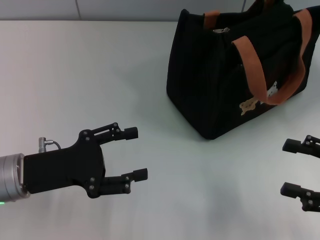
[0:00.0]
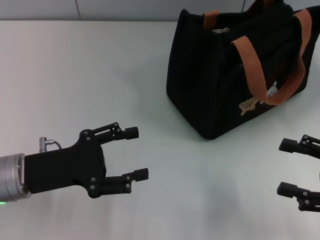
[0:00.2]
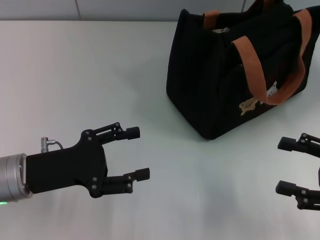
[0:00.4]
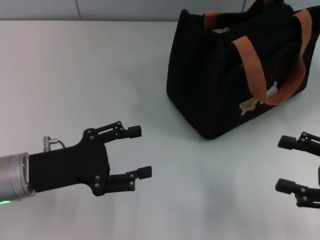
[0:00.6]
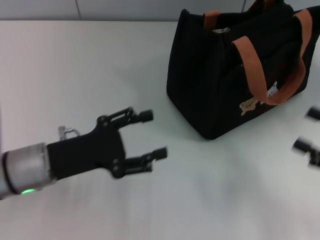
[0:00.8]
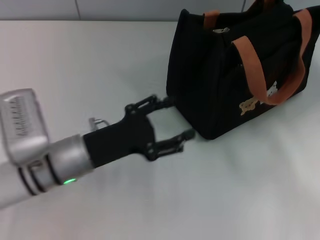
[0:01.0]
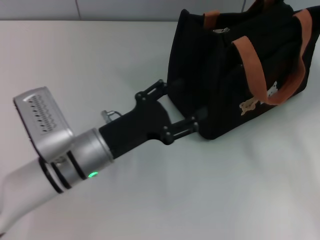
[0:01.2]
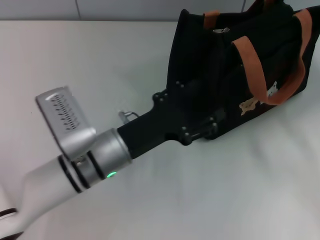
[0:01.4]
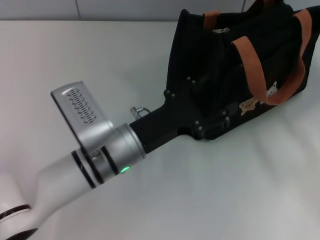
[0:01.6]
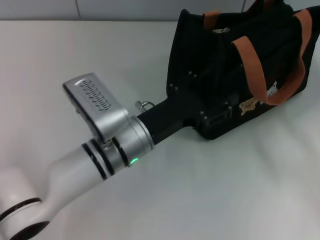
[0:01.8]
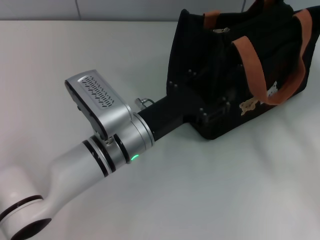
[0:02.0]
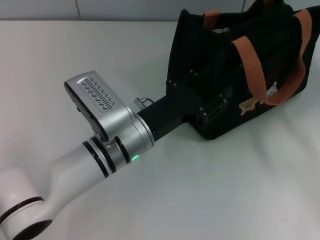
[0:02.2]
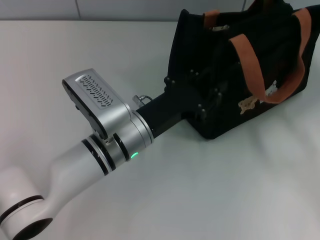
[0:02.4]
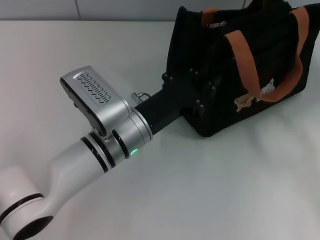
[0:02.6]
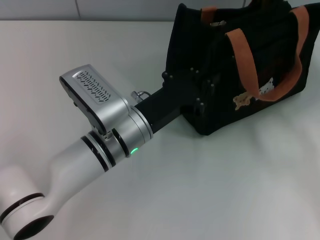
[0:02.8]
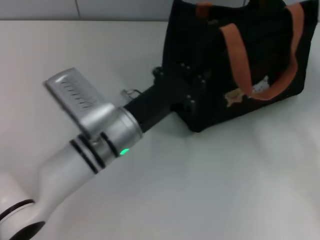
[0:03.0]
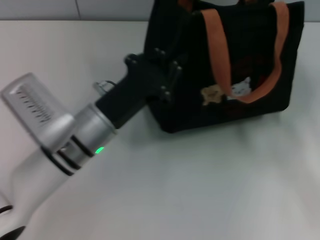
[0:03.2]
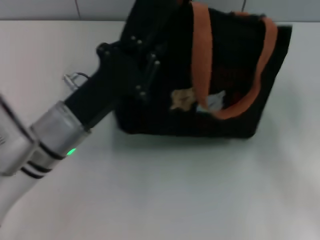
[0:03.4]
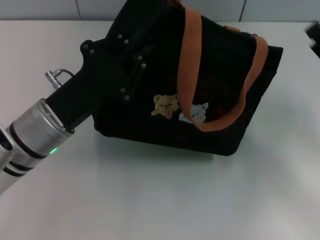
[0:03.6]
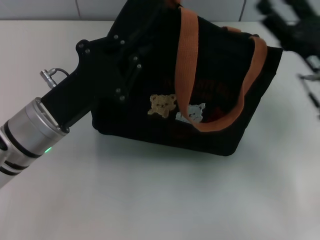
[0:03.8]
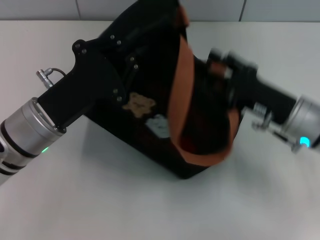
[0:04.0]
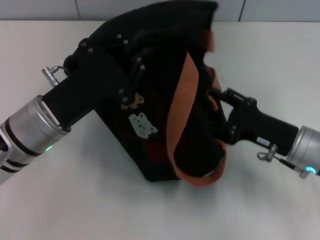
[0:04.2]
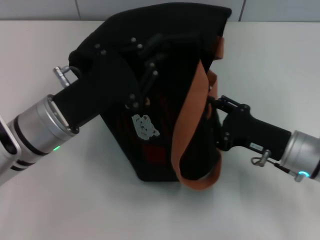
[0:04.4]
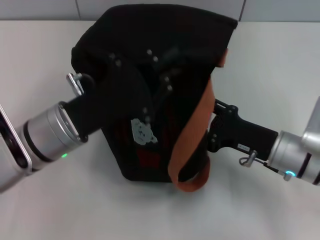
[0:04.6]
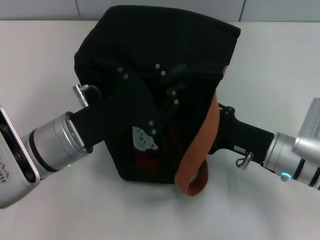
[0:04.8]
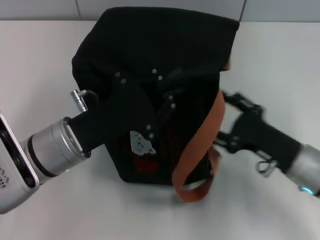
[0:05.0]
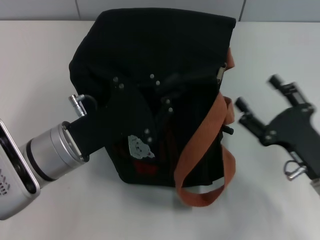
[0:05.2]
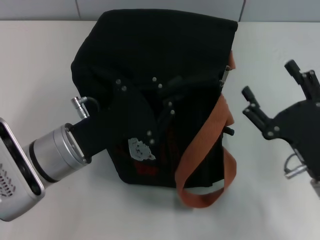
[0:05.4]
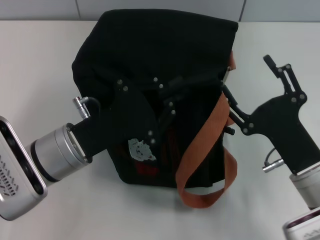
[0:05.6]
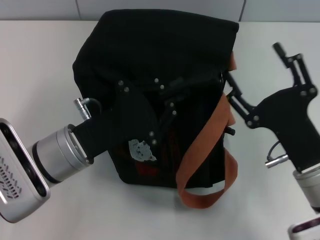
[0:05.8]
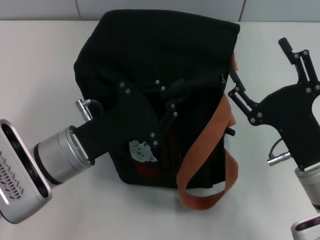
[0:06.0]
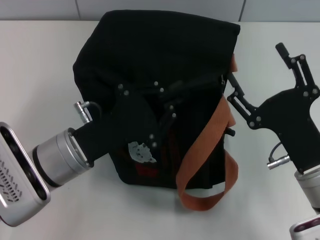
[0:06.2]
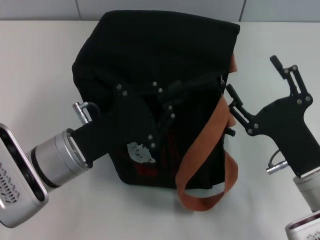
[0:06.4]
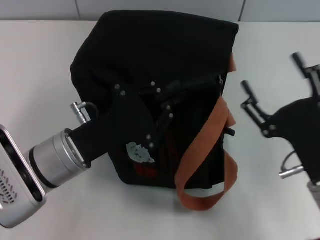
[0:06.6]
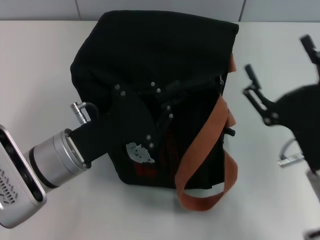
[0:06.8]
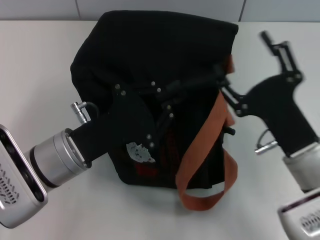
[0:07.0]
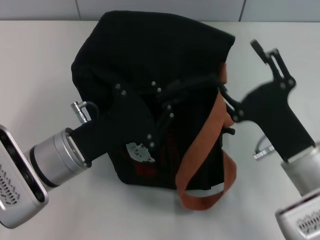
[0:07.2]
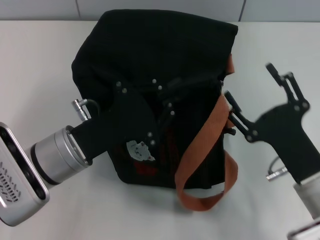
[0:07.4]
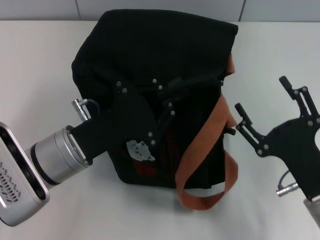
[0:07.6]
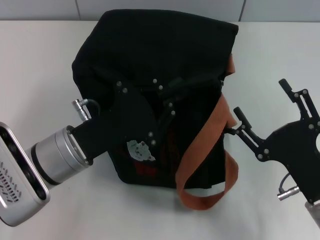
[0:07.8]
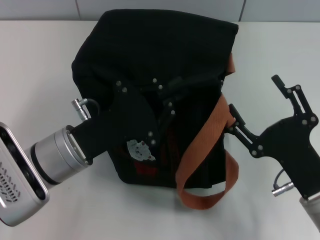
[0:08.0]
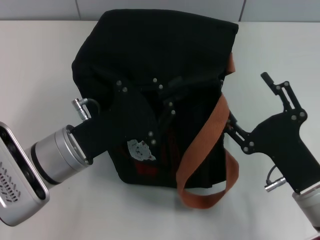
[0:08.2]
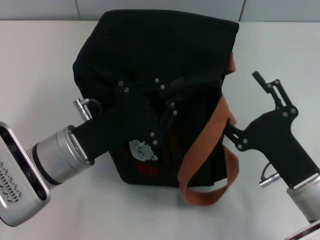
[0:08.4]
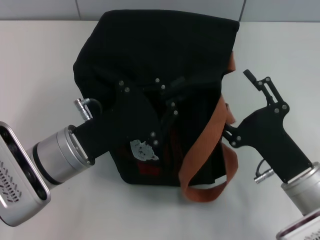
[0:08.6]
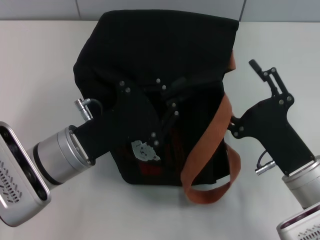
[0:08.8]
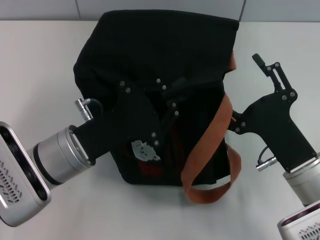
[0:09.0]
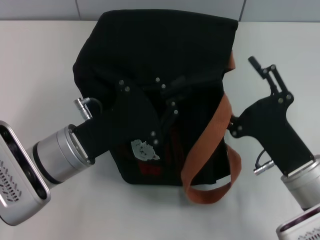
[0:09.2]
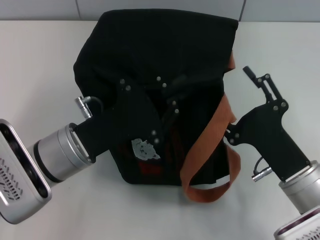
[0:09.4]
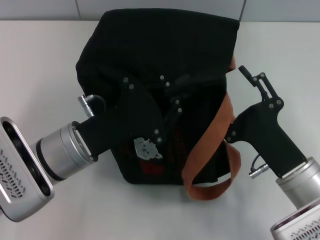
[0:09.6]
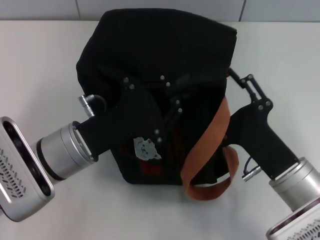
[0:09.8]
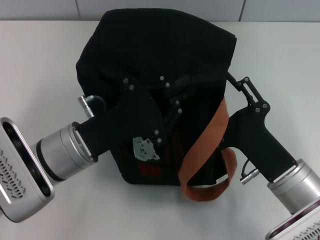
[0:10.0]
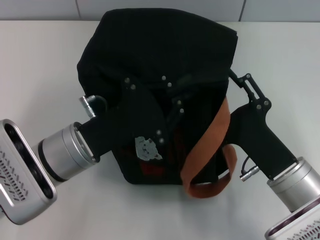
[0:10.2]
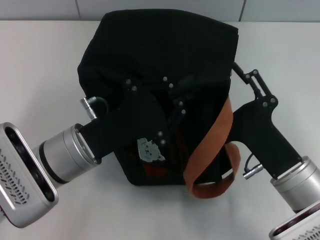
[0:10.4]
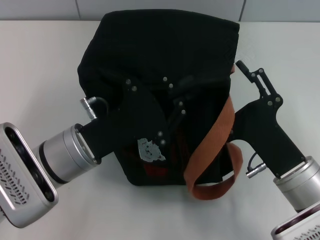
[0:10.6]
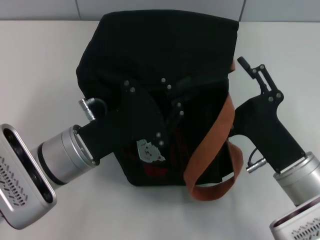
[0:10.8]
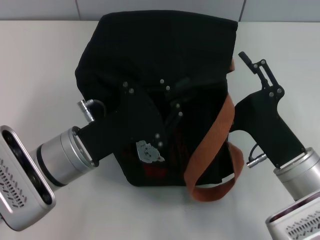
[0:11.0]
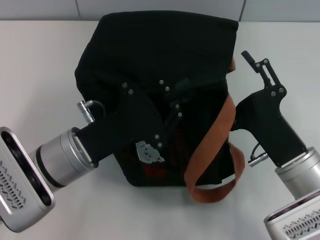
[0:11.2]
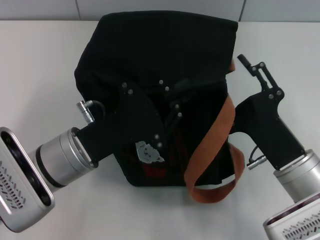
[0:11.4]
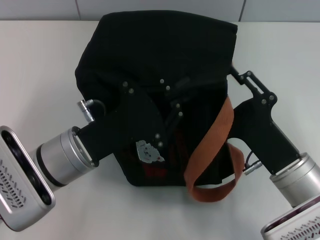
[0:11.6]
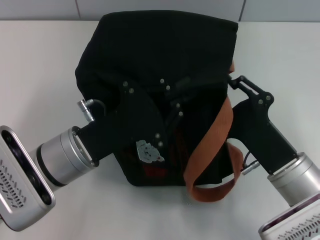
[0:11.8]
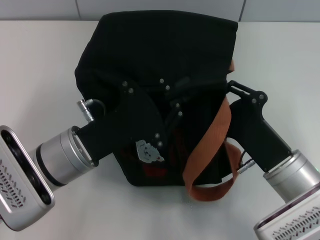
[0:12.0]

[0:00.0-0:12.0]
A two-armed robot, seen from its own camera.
0:00.0 to 0:01.6: The left gripper shifts roughly 15 cm to the right, while the right gripper shifts some 5 cm to the right.
0:01.6 to 0:03.0: The left gripper closes up.
0:03.0 to 0:04.4: The right gripper shifts approximately 20 cm to the left and forward, while the left gripper shifts approximately 10 cm to the left.
0:04.4 to 0:06.0: The right gripper heads backward, covering some 5 cm.
0:06.0 to 0:10.4: The grippers make only small movements.
0:10.4 to 0:12.0: The right gripper closes.

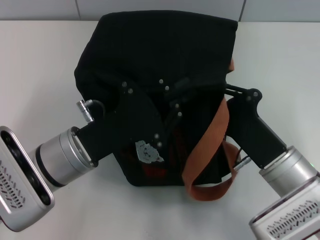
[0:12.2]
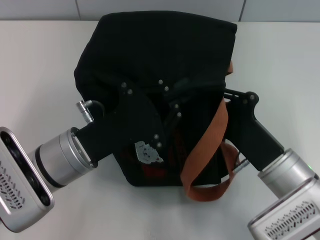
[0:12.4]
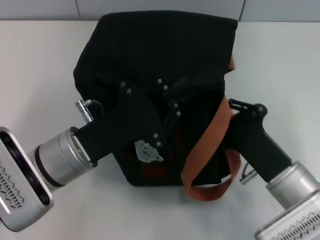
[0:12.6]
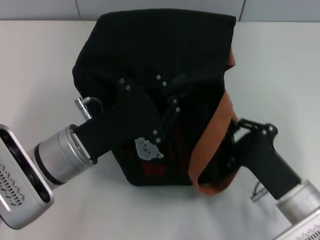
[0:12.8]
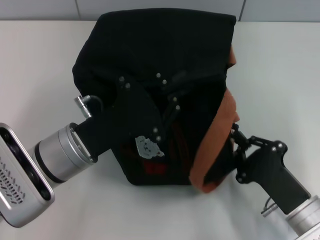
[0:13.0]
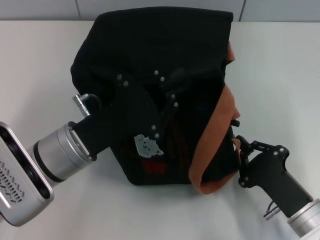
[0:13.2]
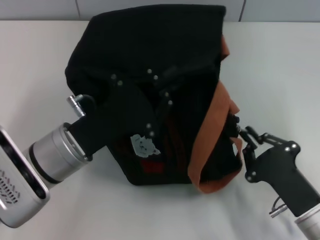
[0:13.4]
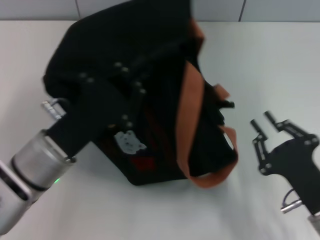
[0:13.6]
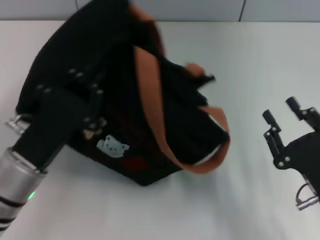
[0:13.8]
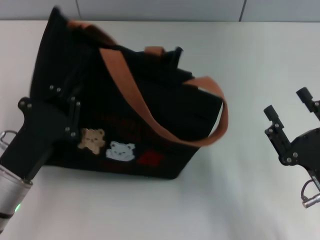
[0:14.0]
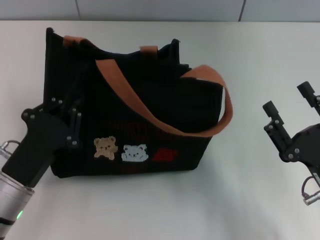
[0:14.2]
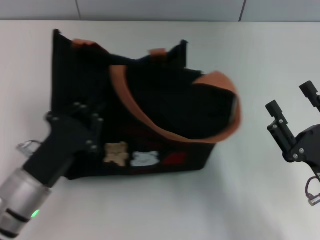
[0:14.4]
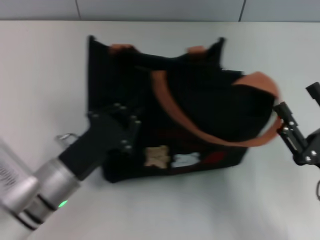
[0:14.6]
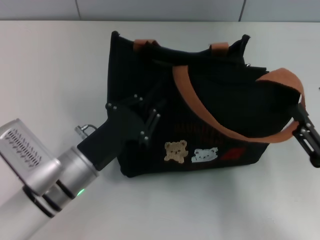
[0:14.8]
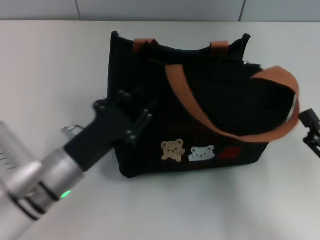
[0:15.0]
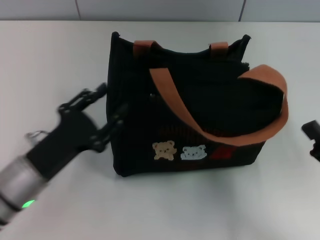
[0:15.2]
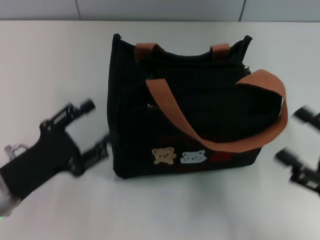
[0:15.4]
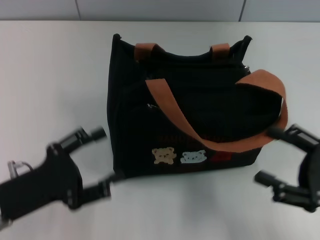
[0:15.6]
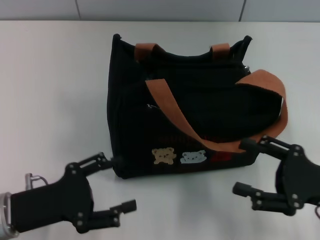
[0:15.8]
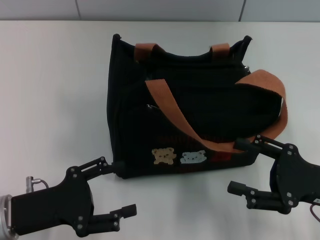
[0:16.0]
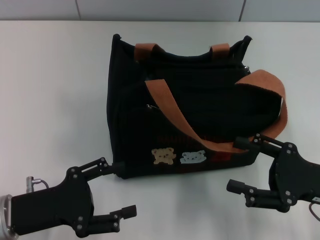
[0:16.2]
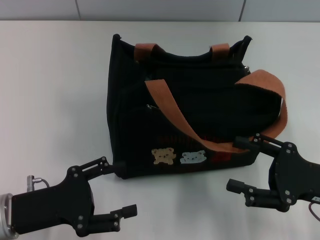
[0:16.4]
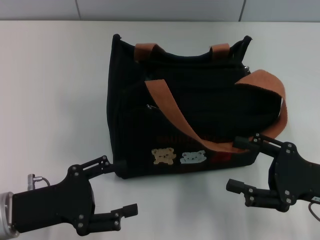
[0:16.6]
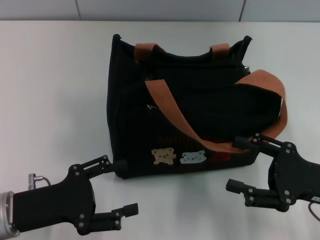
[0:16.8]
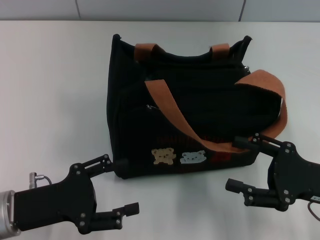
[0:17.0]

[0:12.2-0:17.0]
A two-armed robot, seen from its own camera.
Step, 0:14.0 to 0:15.4: Grab the bag with your left hand.
0:12.2 to 0:13.8: The left gripper shifts by approximately 5 cm. Meanwhile the right gripper shifts roughly 10 cm to the right and backward.
0:13.8 to 0:15.4: The left gripper changes place by about 5 cm, and opens up. Meanwhile the right gripper moves to the right, about 5 cm, and opens its fingers.

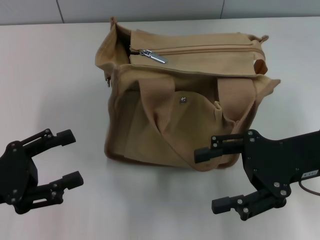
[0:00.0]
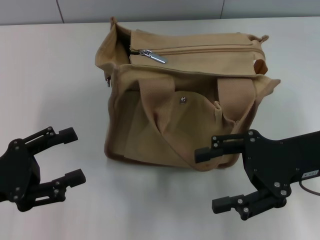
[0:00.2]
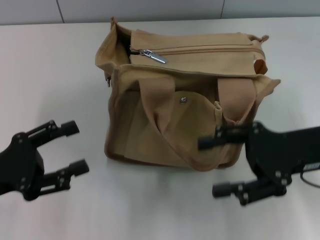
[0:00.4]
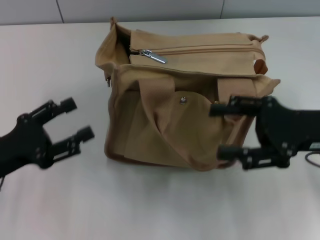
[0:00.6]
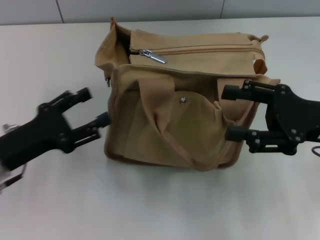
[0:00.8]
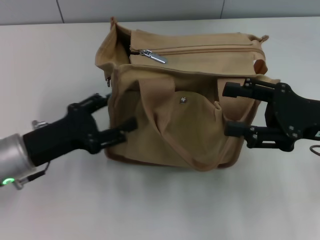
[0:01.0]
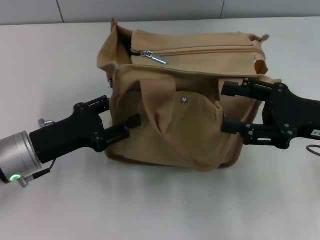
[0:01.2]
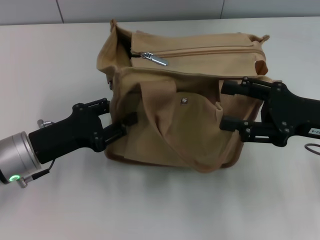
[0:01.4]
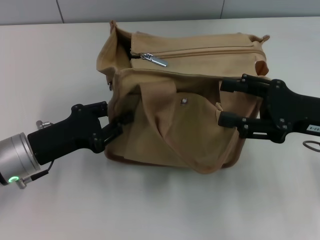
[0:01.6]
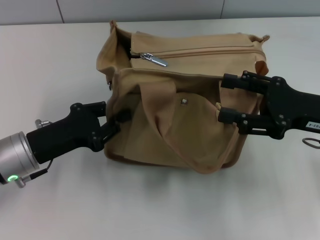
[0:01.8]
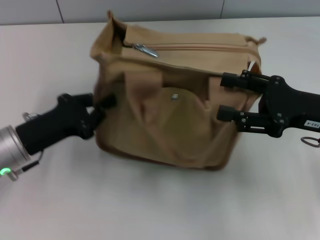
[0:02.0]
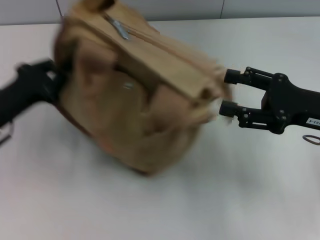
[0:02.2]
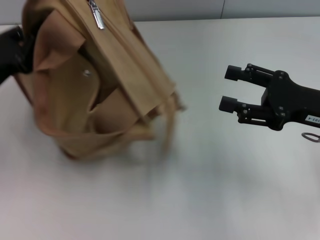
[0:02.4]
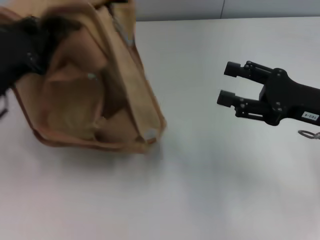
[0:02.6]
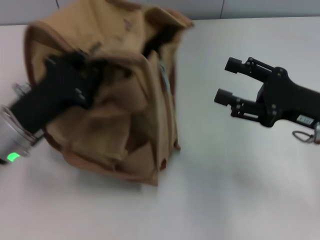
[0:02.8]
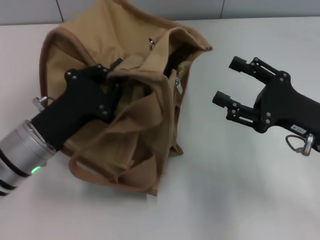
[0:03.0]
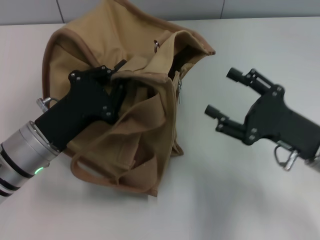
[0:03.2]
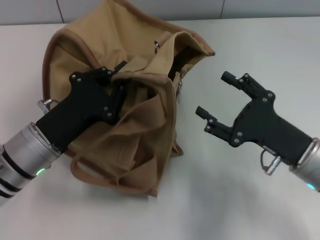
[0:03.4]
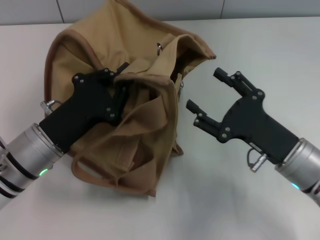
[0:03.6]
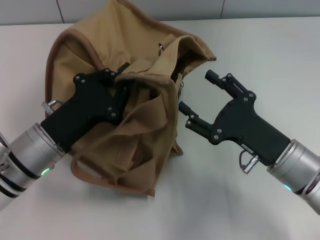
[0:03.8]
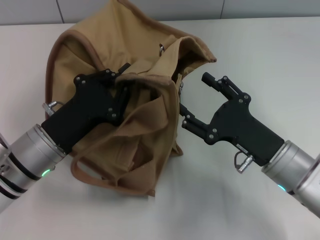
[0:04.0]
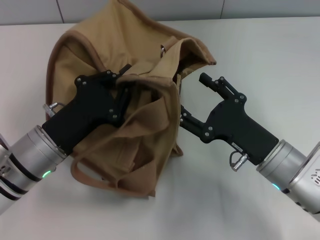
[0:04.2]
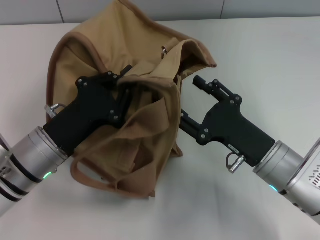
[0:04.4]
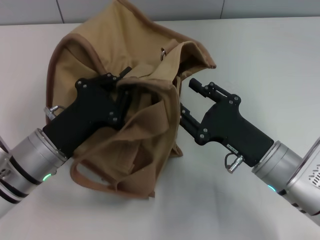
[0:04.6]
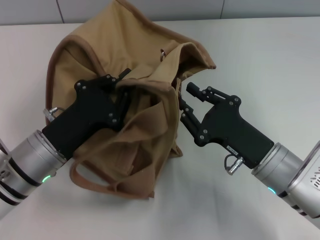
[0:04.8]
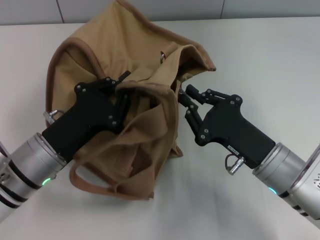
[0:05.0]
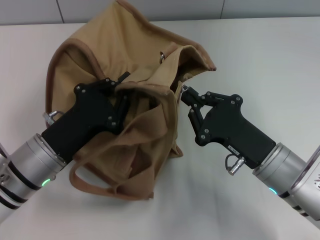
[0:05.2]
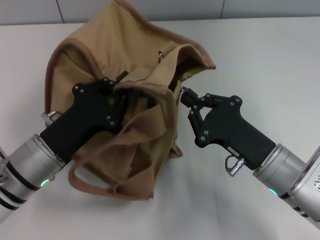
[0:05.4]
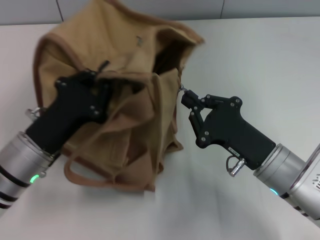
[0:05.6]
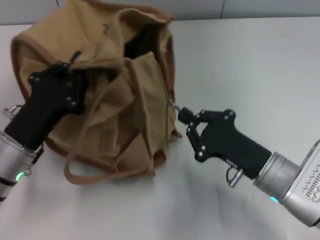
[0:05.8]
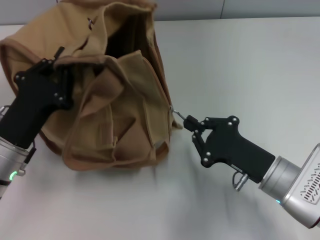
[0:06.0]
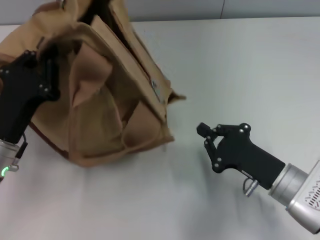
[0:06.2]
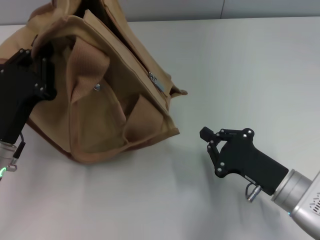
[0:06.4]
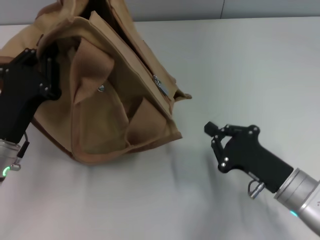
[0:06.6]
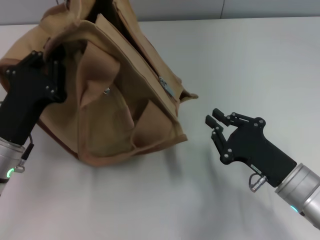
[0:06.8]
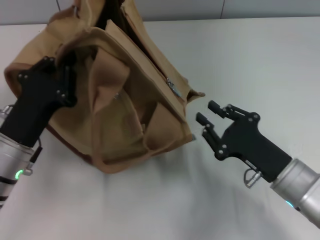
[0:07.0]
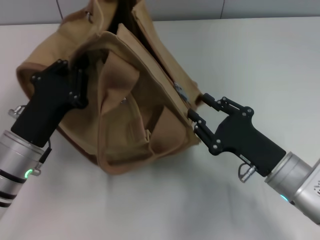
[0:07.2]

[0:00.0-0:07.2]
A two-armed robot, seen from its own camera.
0:00.0 to 0:01.4: The left gripper is displaced to the right and forward by approximately 10 cm.
0:01.4 to 0:02.8: The left gripper closes up.
0:02.8 to 0:04.4: The left gripper moves about 5 cm, while the right gripper moves to the left and downward, some 10 cm.
0:04.4 to 0:05.8: The right gripper closes.
0:05.8 to 0:07.2: The right gripper opens its fingers.
